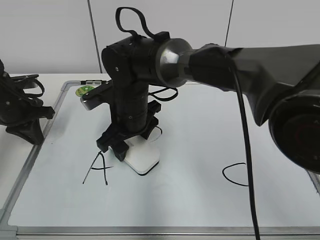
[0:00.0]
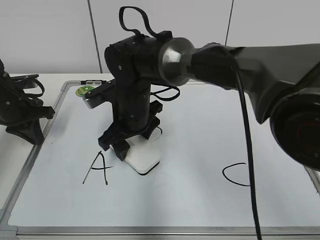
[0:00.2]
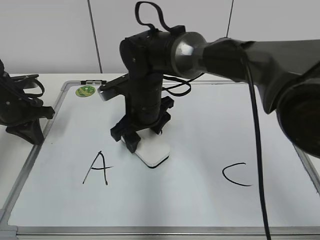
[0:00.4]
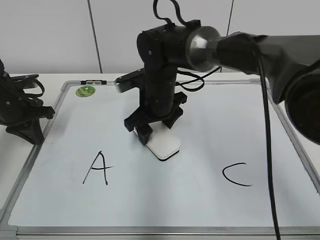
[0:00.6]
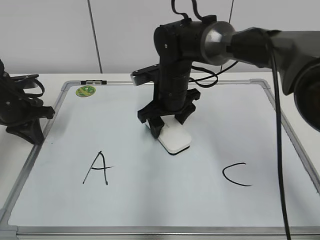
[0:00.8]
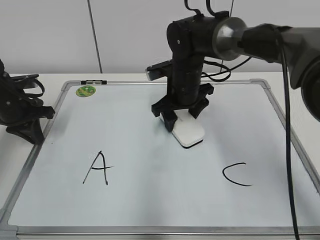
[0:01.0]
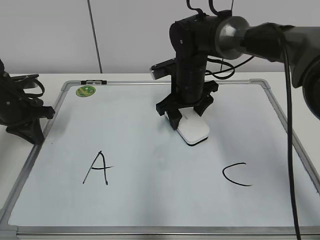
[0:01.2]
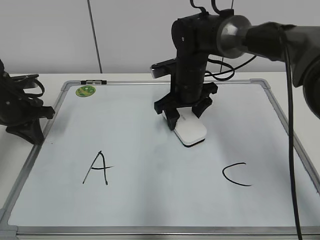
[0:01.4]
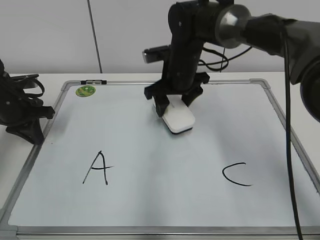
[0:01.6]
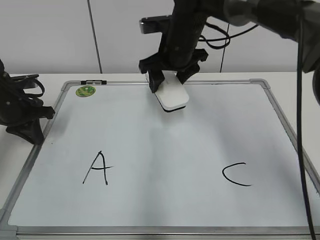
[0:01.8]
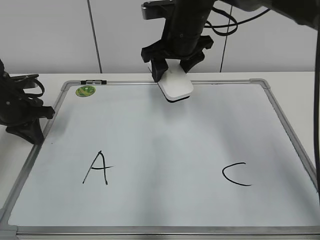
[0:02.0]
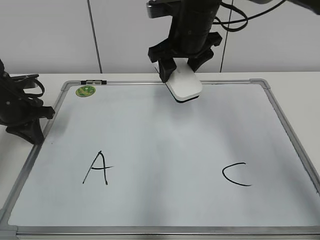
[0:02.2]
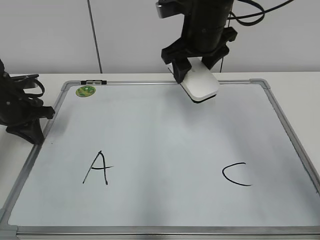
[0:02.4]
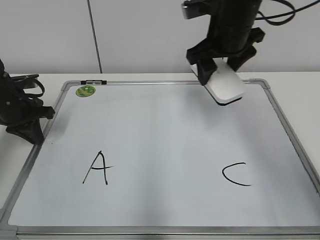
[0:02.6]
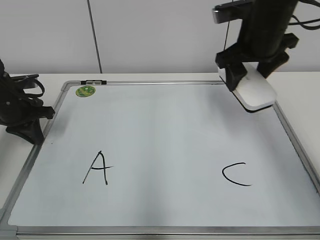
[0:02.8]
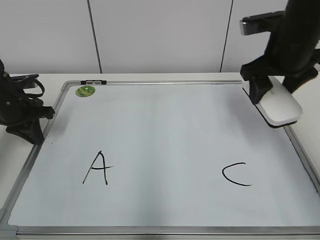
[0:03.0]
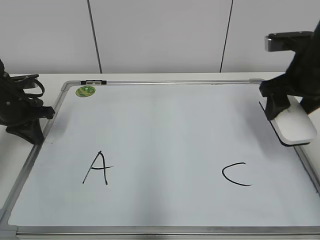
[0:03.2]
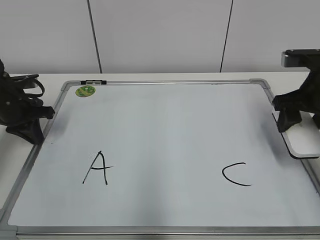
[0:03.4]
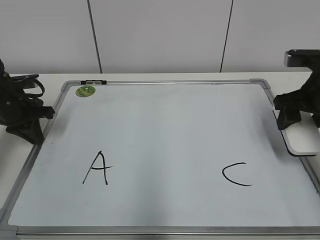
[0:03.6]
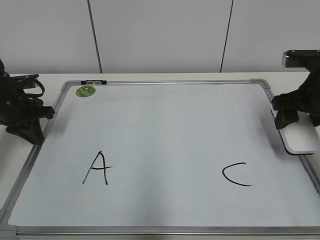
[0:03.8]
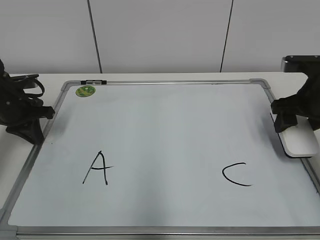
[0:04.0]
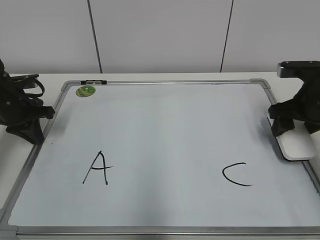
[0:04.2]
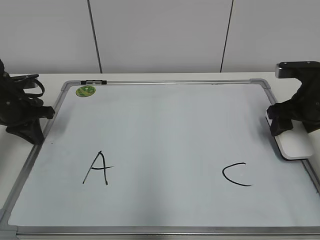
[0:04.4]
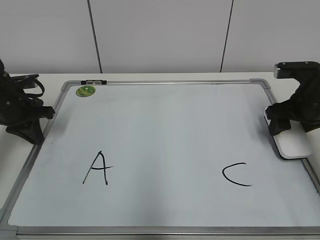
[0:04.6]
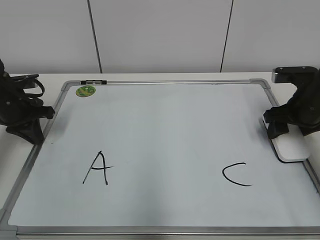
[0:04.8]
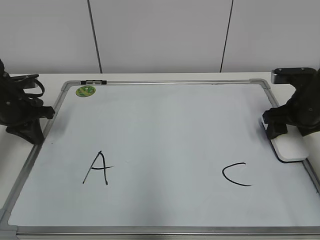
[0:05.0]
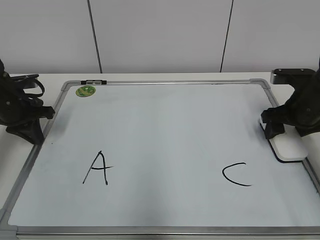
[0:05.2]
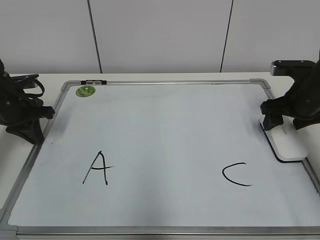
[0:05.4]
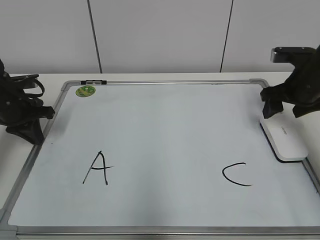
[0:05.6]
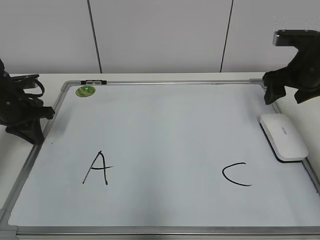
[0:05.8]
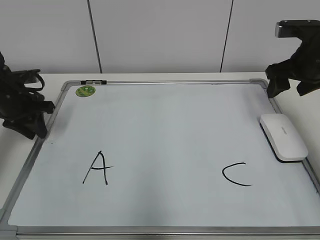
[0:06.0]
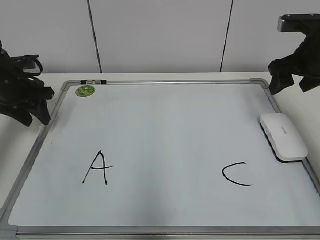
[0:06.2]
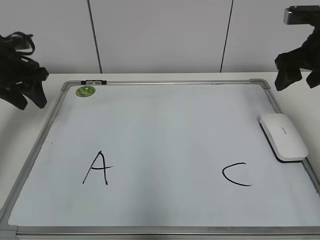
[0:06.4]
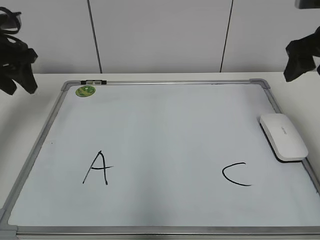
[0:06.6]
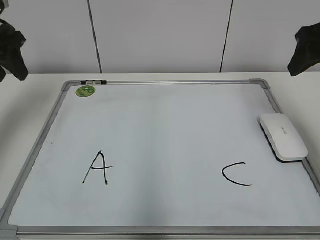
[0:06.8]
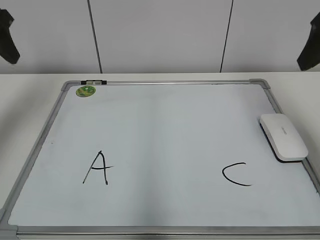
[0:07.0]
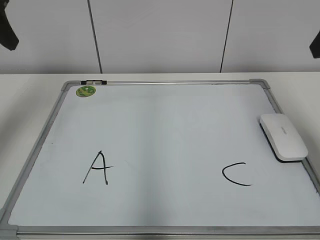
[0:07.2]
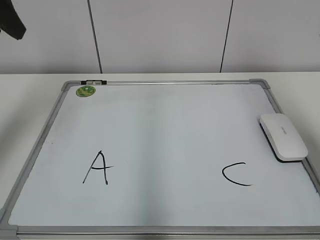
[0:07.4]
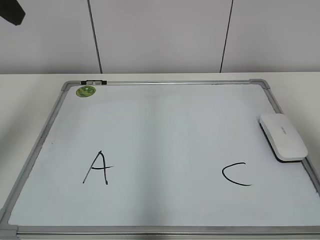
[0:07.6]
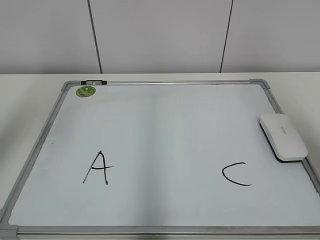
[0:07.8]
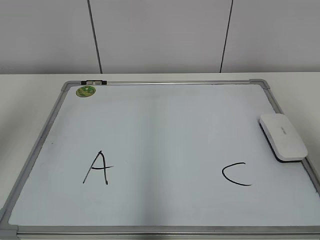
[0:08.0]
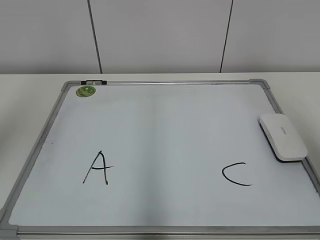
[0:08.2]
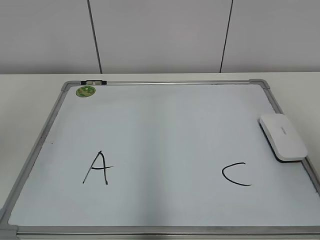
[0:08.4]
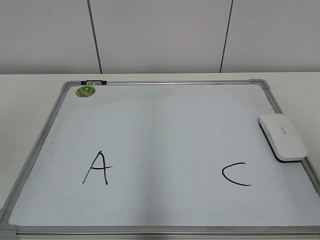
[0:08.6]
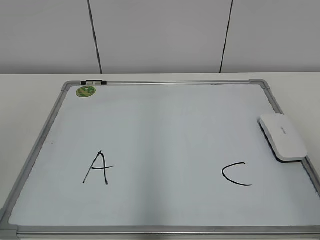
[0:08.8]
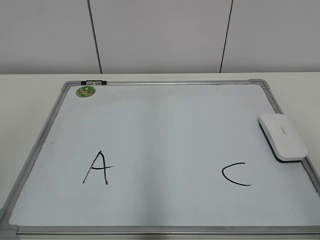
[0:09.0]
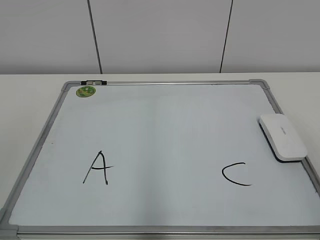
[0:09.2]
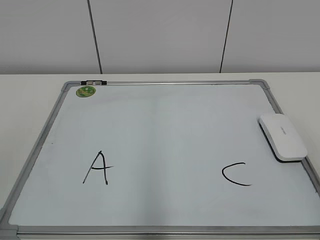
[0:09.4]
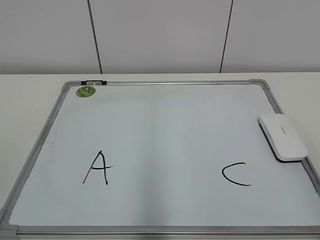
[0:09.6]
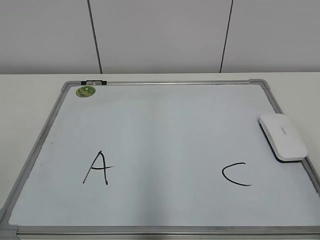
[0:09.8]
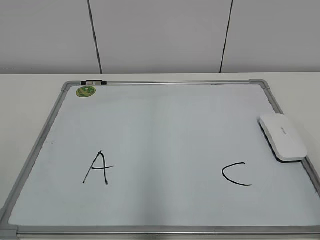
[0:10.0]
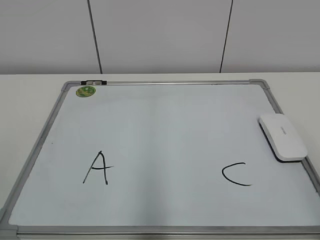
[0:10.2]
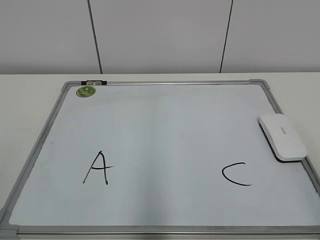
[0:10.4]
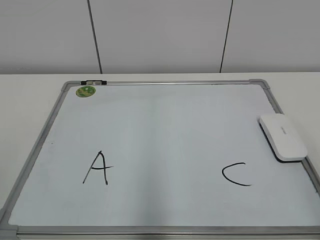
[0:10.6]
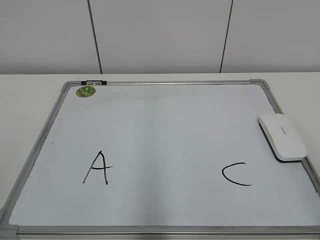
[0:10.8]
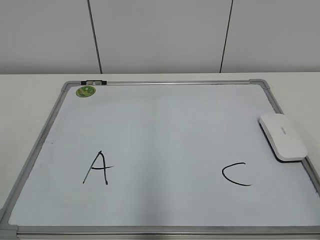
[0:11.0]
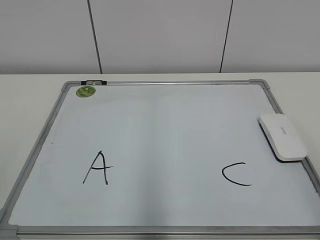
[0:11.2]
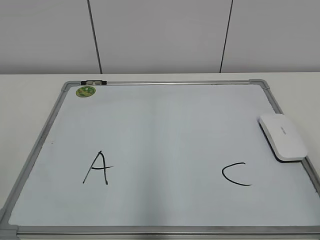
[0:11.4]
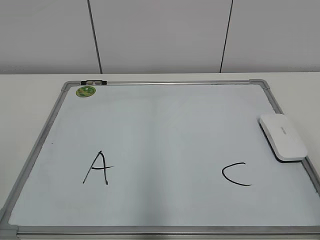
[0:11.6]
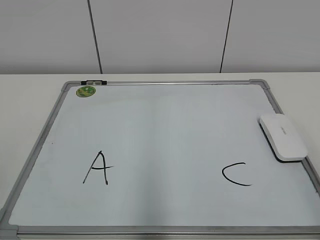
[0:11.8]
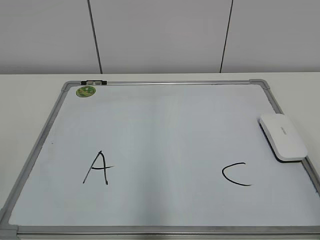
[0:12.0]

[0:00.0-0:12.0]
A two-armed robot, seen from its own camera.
Task of the whole recording: pick up the eraser on the blackboard and erase the letter "B".
Step, 0:01.4 to 0:05.2: Put down the eraser with your right hand.
0:00.0 to 0:01.6: The right gripper moves to the right and forward, roughly 15 cm.
0:01.6 to 0:03.0: The right gripper moves to the right, backward and upward, about 20 cm.
0:03.0 to 0:04.4: The right gripper is displaced downward and to the right by some 10 cm.
0:04.4 to 0:06.0: The right gripper moves upward, about 5 cm, while the left gripper opens up.
0:06.0 to 0:07.6: Both grippers travel together upward and backward, some 25 cm.
0:07.6 to 0:09.0: Both grippers travel together backward, about 20 cm.
0:10.4 to 0:12.0: Neither gripper changes place.

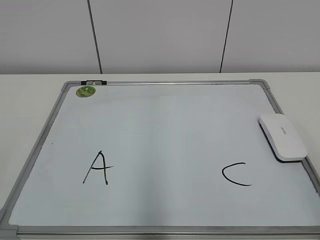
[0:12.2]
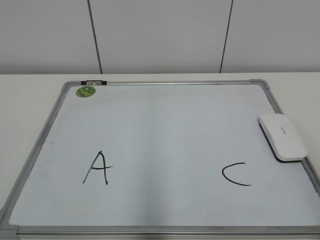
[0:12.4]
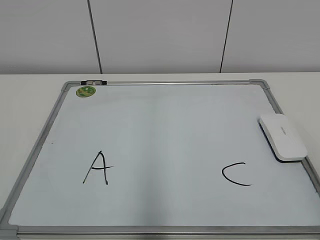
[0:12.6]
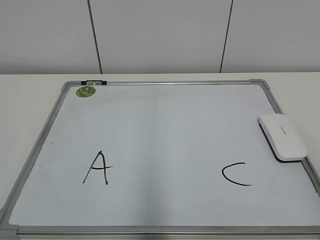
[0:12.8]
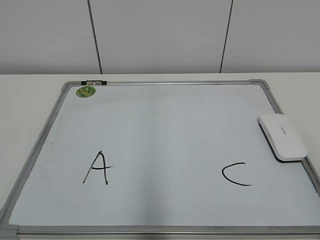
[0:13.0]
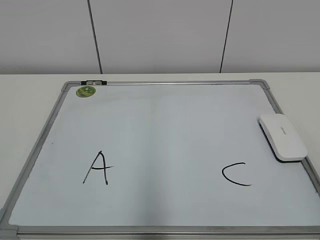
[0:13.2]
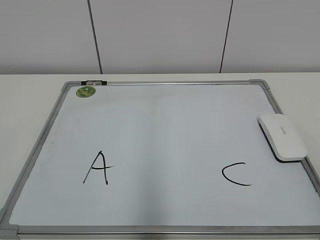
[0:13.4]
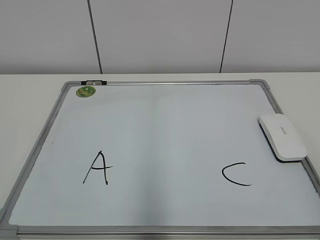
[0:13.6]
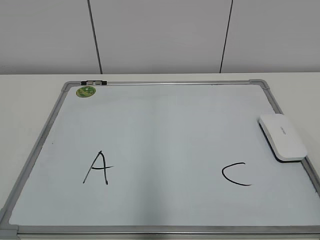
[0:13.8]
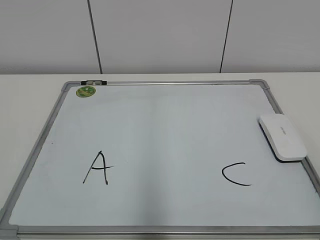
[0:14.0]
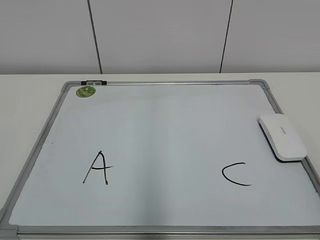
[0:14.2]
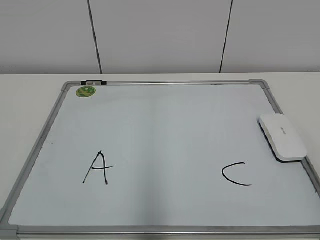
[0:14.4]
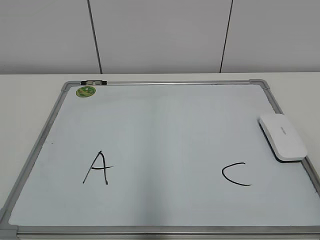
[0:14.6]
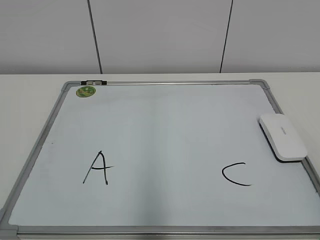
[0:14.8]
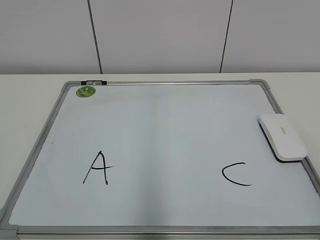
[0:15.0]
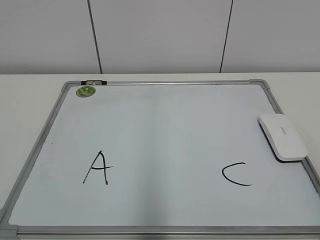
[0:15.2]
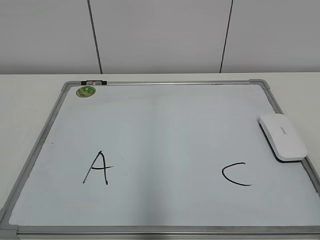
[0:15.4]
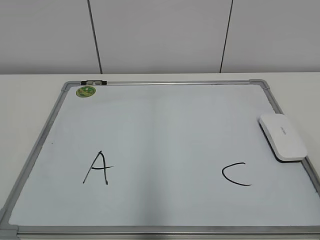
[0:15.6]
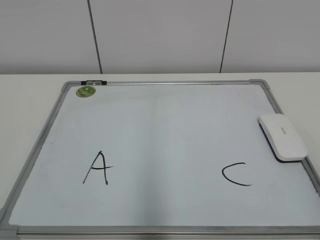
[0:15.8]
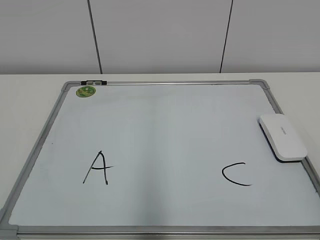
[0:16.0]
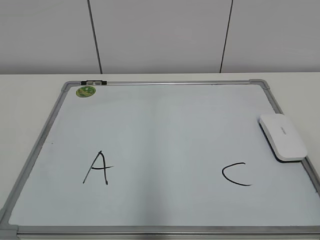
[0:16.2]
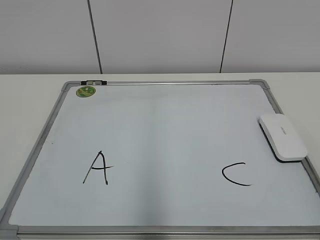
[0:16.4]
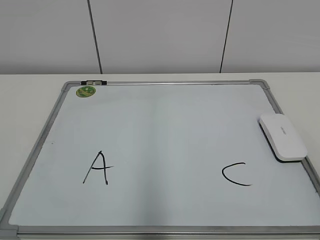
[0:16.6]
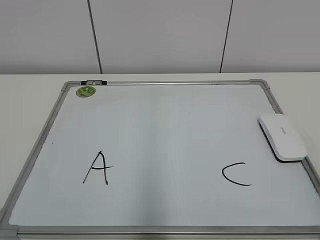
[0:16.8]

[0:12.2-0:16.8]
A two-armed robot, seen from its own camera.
Task of the whole recording: pick up the eraser on the blackboard and erase the letter "B".
0:13.8 to 0:16.8: The two grippers keep their place.

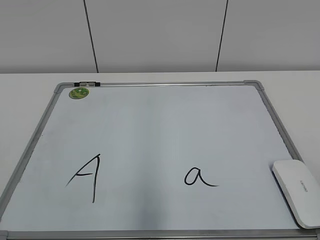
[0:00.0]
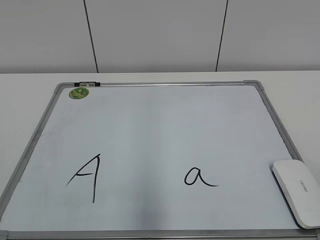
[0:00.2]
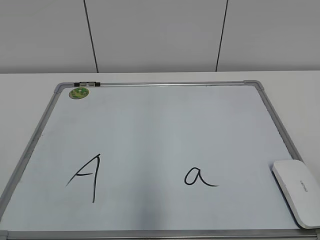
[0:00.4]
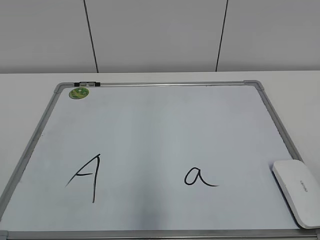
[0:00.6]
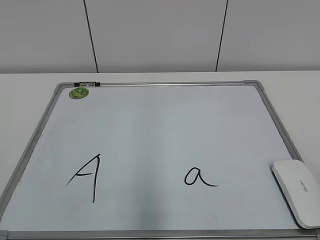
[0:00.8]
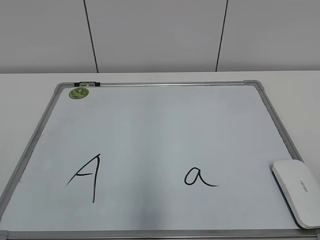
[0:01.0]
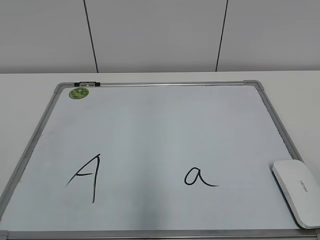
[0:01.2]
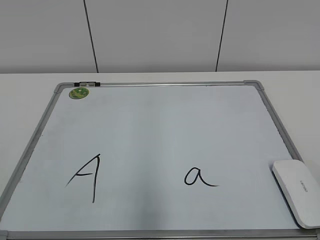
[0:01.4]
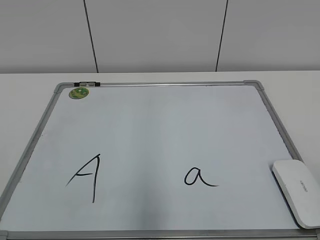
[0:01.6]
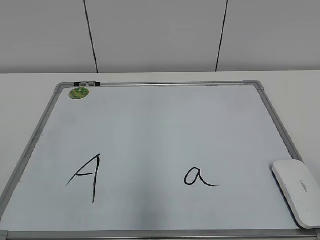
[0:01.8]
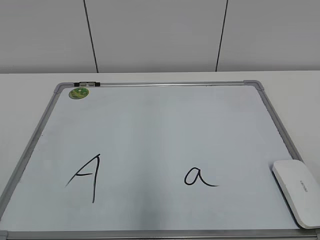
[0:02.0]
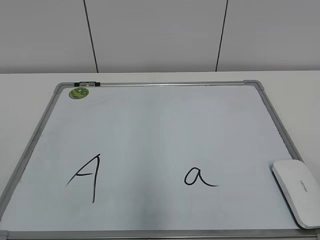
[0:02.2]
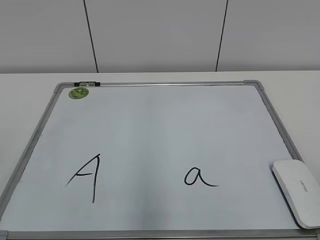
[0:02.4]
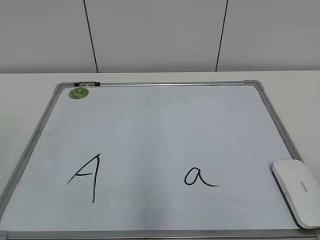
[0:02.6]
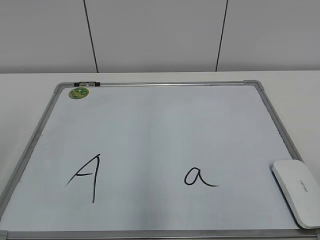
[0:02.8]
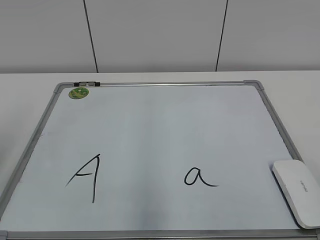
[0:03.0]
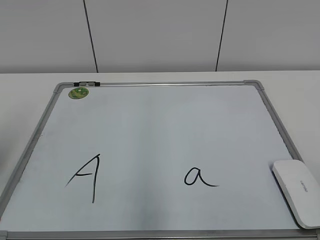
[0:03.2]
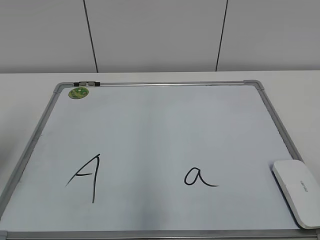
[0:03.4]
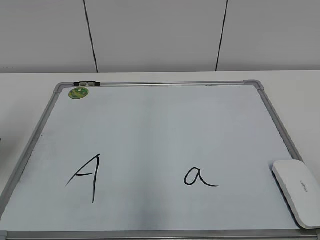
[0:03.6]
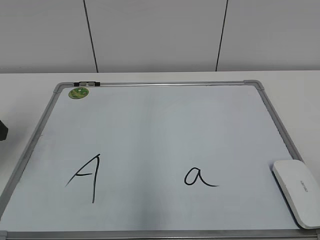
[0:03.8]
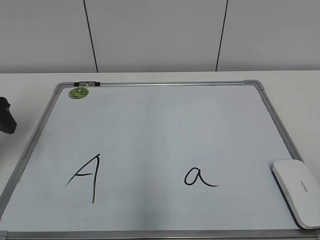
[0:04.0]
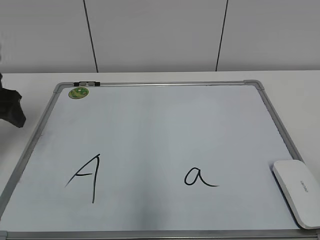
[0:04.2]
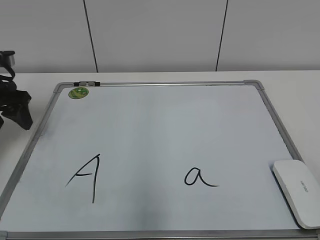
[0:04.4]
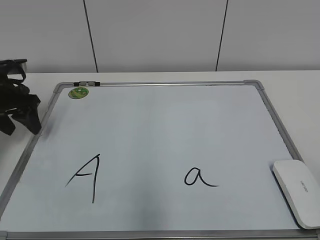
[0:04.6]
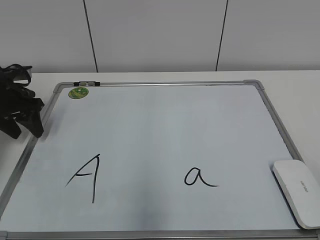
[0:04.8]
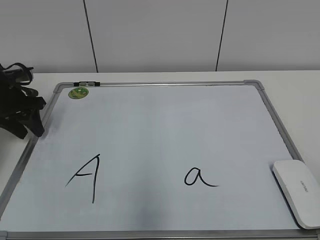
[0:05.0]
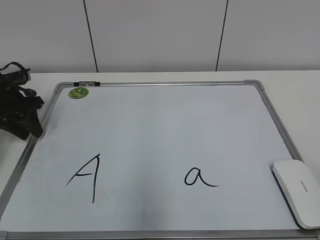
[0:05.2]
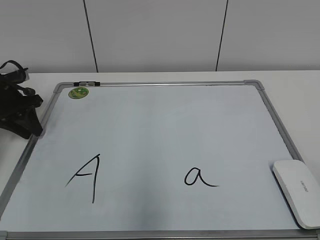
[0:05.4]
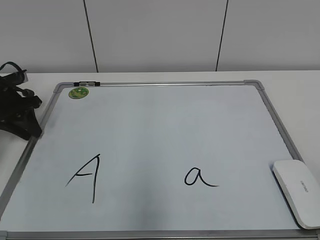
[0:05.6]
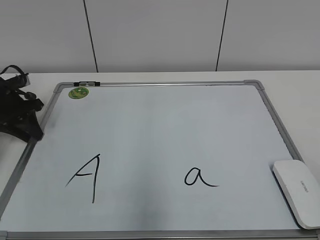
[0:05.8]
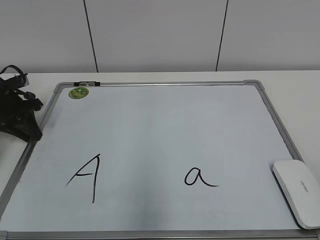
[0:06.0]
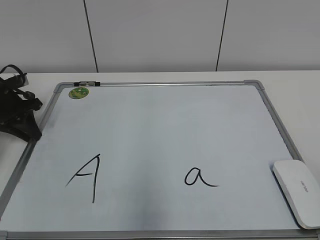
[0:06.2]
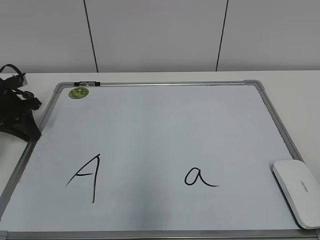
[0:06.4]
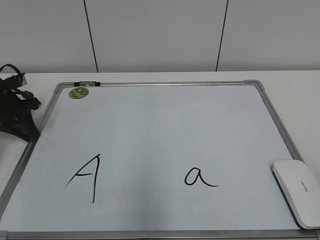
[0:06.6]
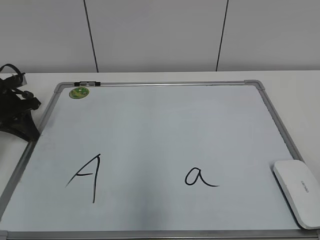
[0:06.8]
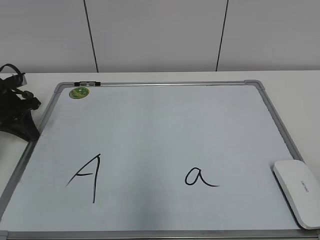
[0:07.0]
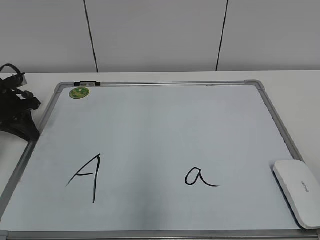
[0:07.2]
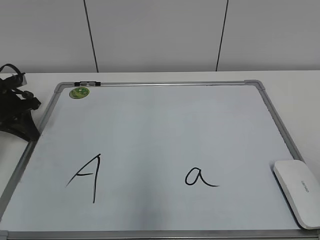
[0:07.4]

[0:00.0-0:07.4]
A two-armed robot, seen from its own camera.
Task of the whole recording: pick up the eraser on the blackboard and erase the letter "a".
Step, 0:00.0 to 0:06.4: Hold the drawing board steady with your left hand.
0:03.0 to 0:04.4: The left gripper is displaced forward by some 20 cm.
0:04.4 to 0:06.0: The left gripper moves downward and forward, roughly 10 cm, and closes.
0:06.0 to 0:07.4: The grippers move only a little.
